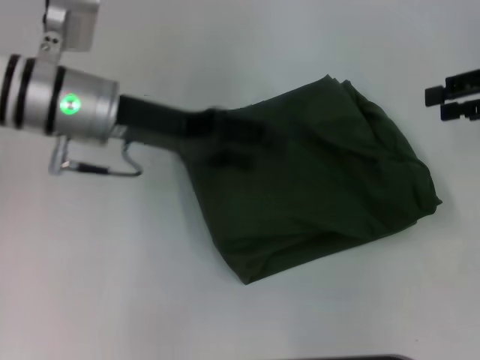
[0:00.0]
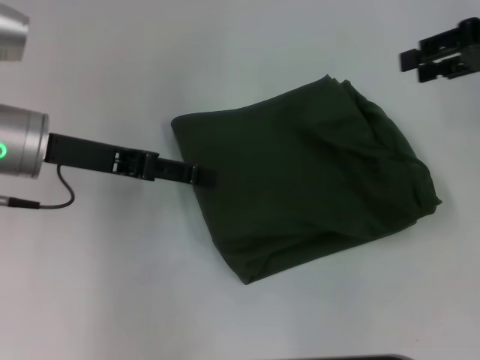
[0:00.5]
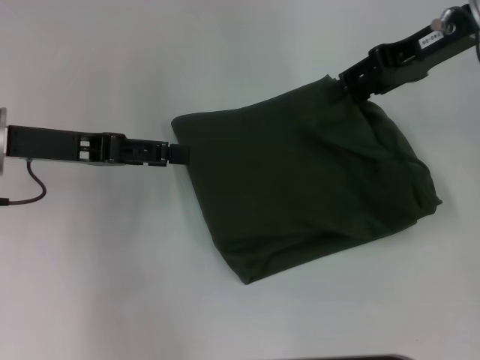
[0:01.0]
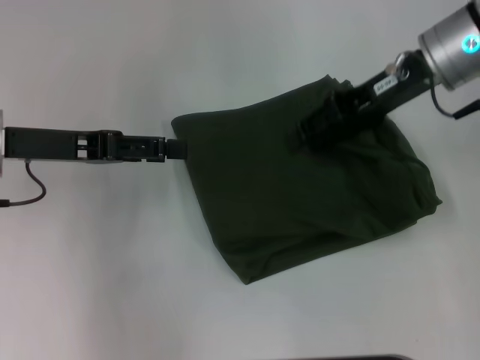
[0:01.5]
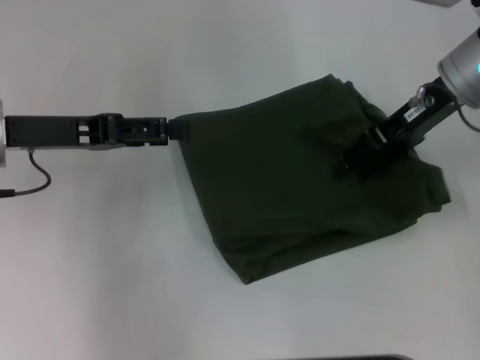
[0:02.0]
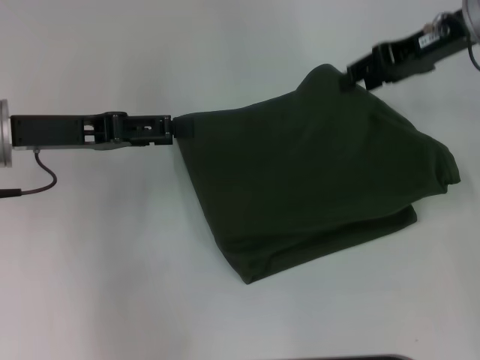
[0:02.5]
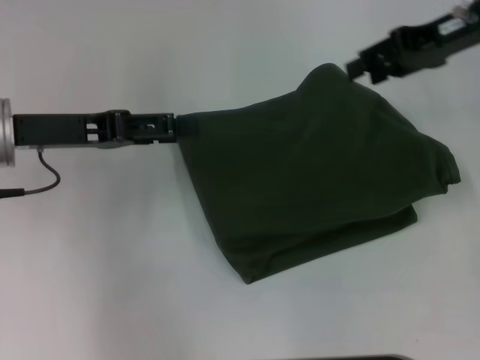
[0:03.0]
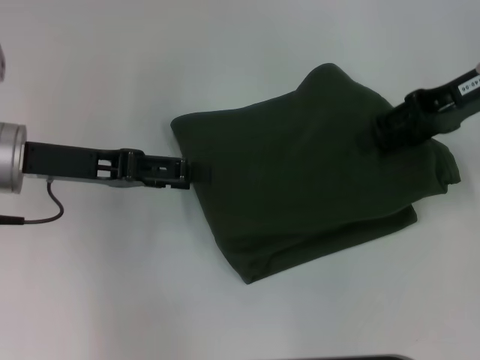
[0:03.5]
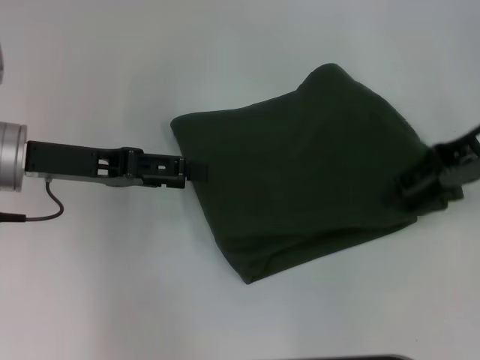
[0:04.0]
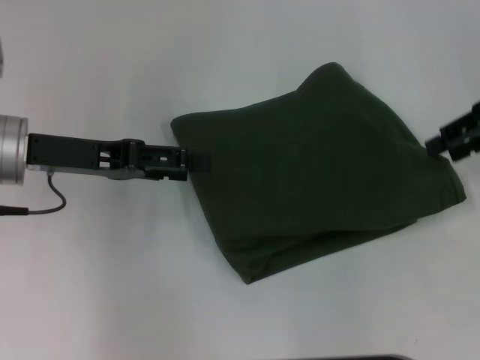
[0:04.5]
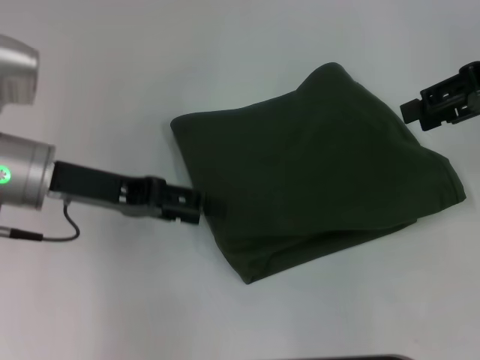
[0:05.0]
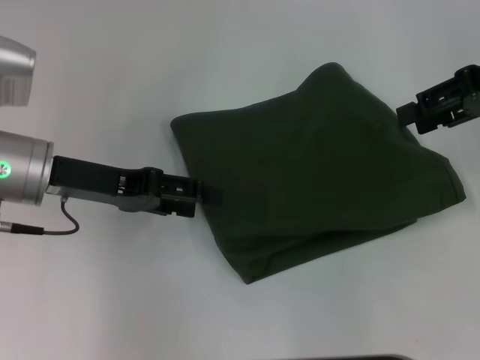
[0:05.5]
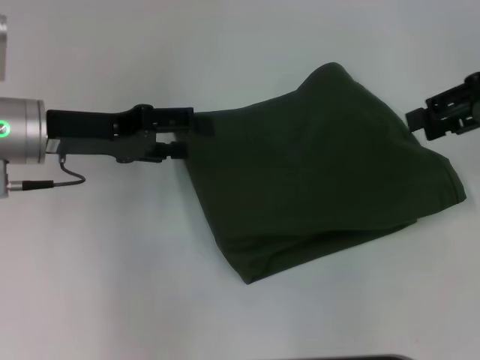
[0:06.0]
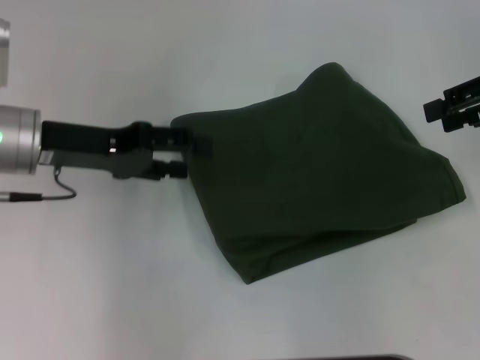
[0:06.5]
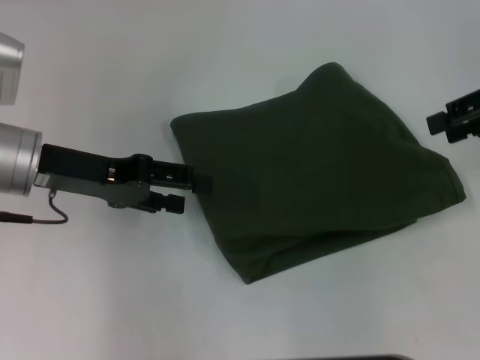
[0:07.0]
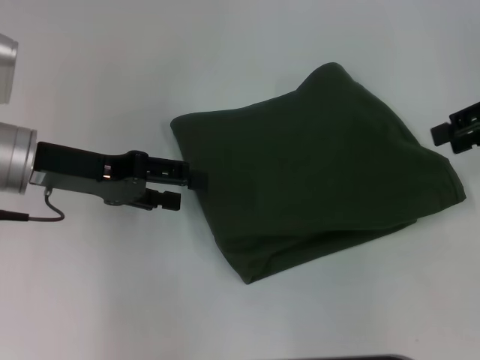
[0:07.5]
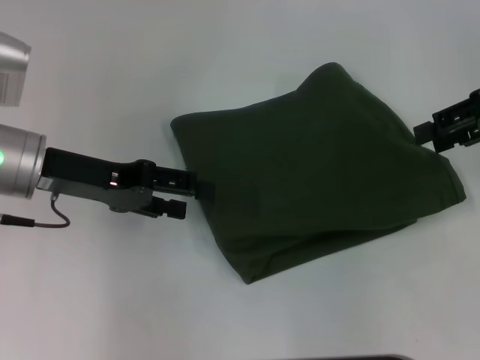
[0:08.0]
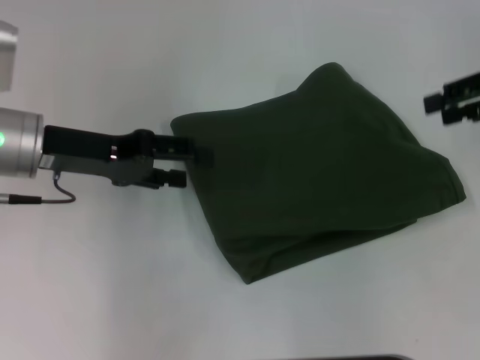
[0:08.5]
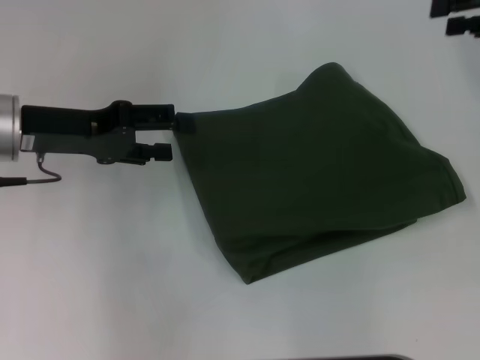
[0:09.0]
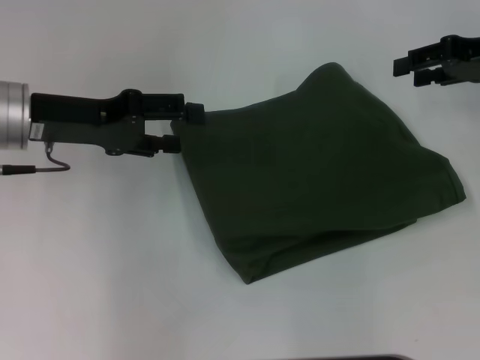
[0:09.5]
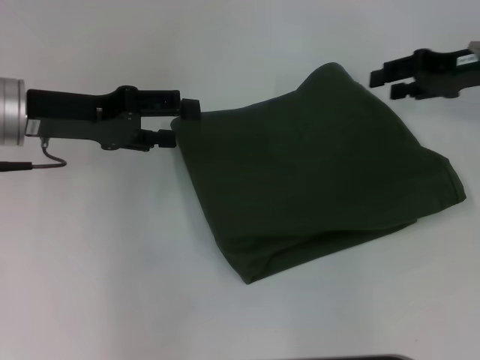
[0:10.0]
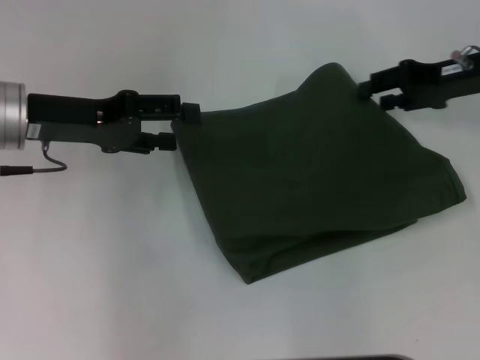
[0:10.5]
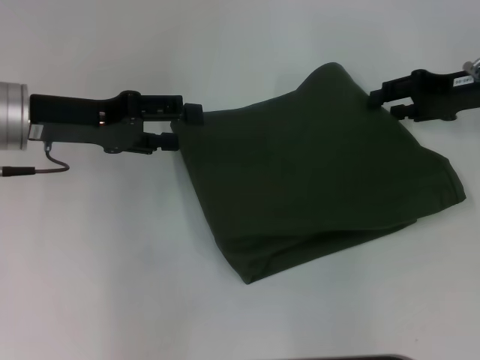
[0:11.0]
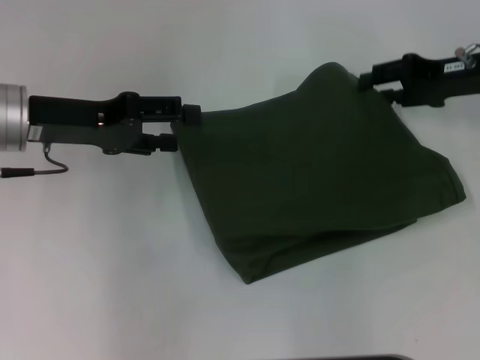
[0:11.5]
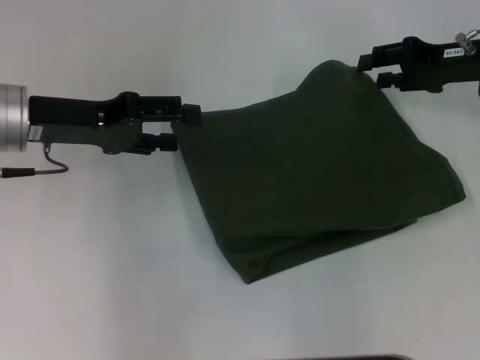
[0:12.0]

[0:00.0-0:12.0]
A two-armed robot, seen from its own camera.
0:00.0 to 0:02.0: The left gripper is displaced to the left by about 10 cm. The right gripper goes some 15 cm to the left.
0:02.0 to 0:04.0: The right gripper shifts some 5 cm to the right.
0:04.0 to 0:06.0: The right gripper ends up some 5 cm from where it was.
0:06.0 to 0:08.0: The grippers make only small movements.
0:08.0 to 0:10.0: The right gripper ends up approximately 5 cm from where it was.
0:10.0 to 0:12.0: The grippers stay close to where they were, moving slightly.

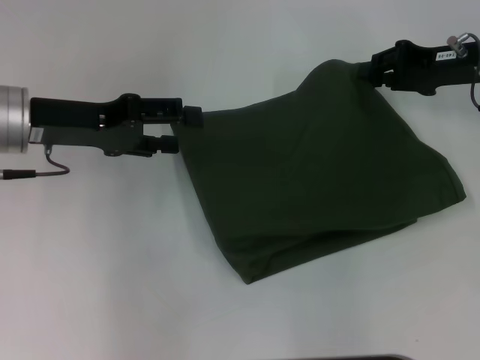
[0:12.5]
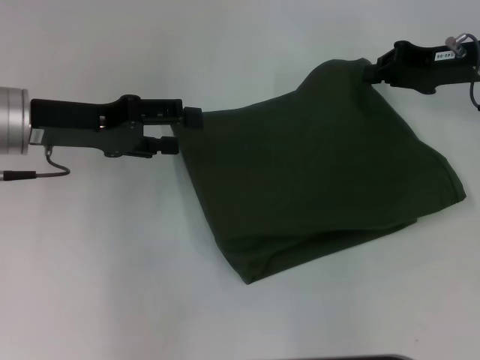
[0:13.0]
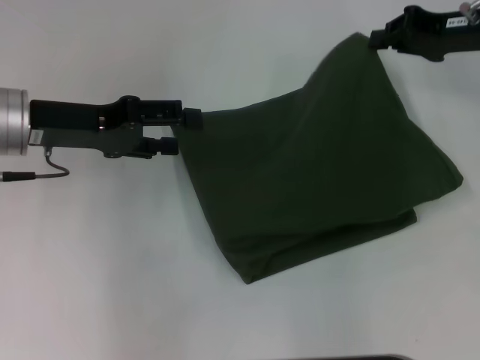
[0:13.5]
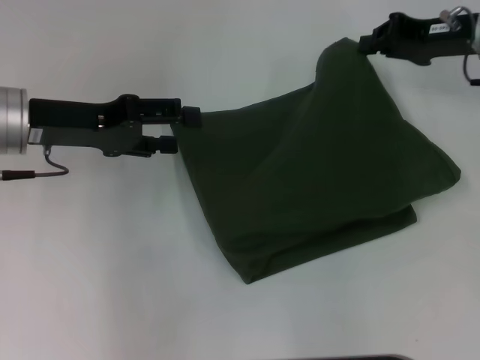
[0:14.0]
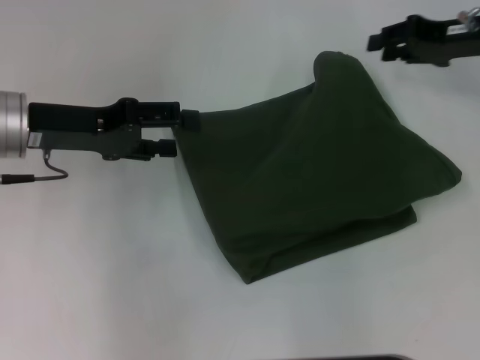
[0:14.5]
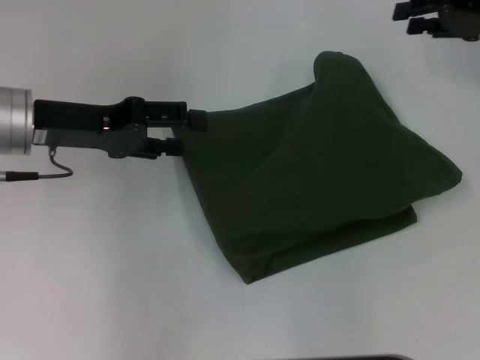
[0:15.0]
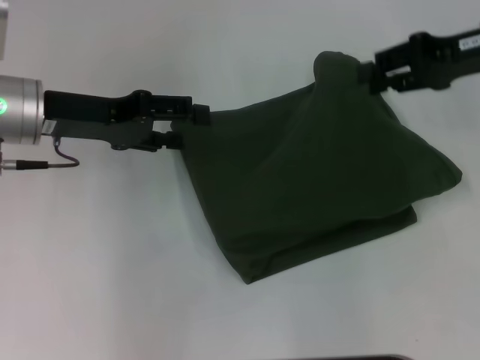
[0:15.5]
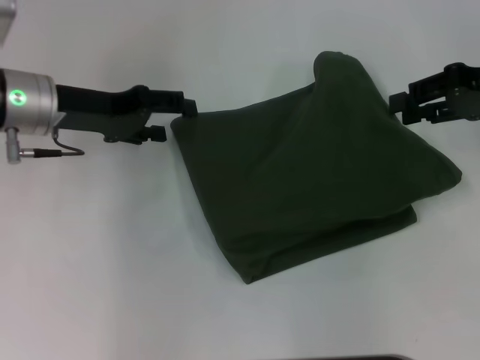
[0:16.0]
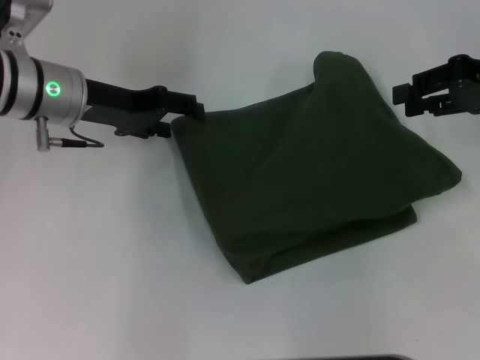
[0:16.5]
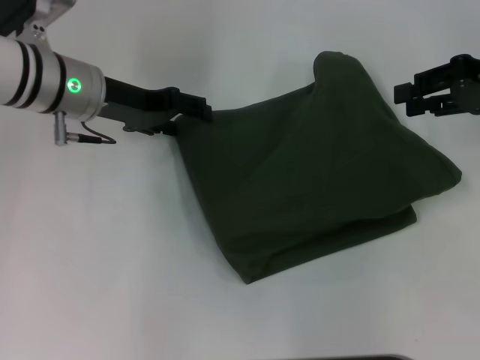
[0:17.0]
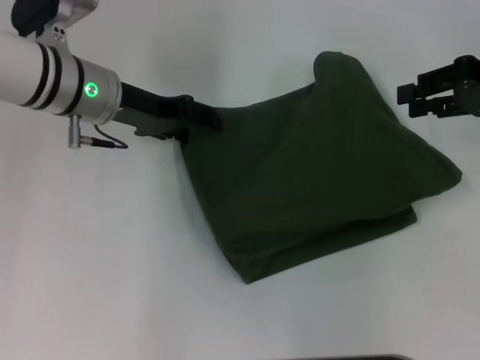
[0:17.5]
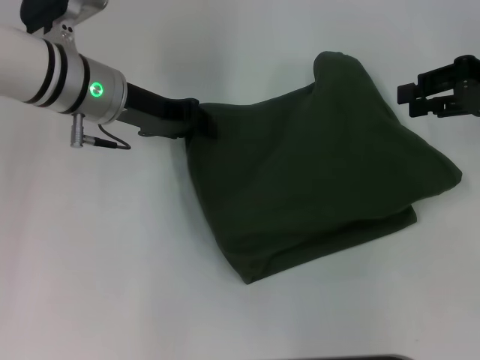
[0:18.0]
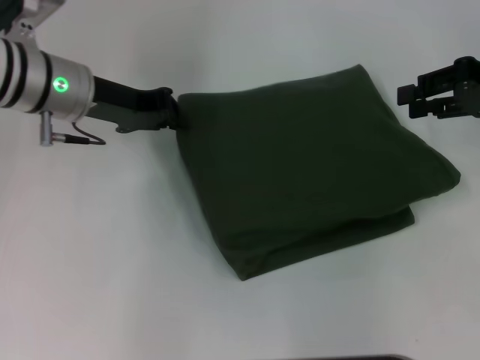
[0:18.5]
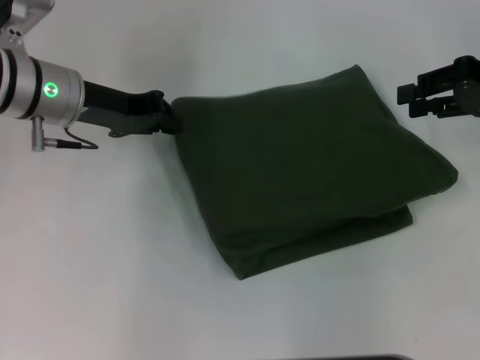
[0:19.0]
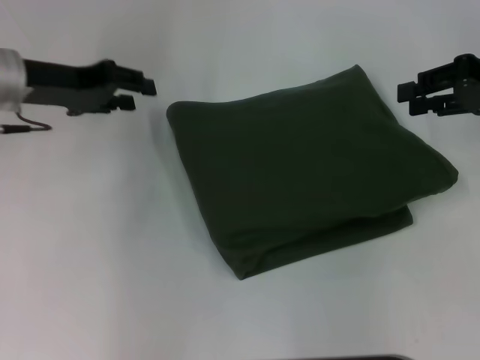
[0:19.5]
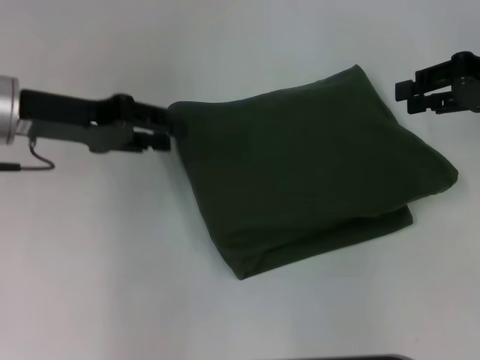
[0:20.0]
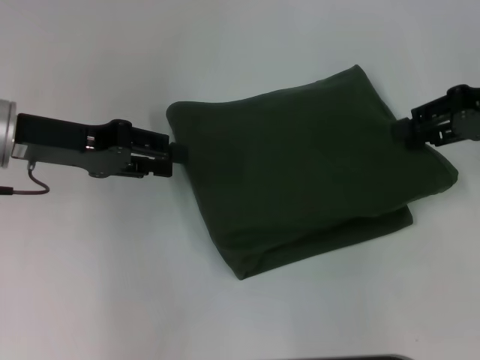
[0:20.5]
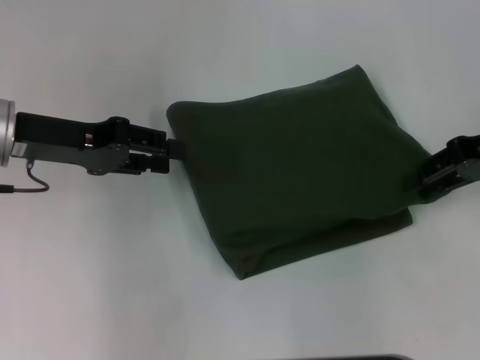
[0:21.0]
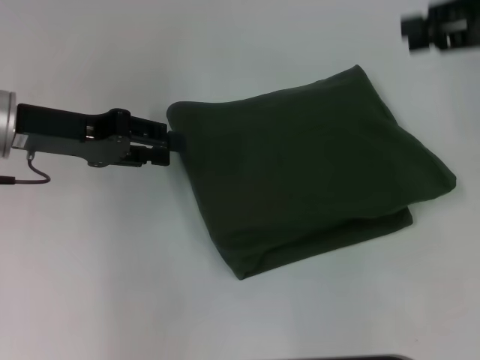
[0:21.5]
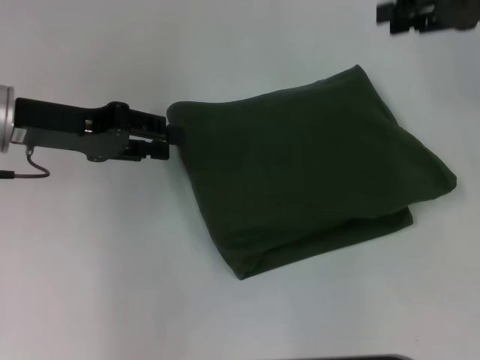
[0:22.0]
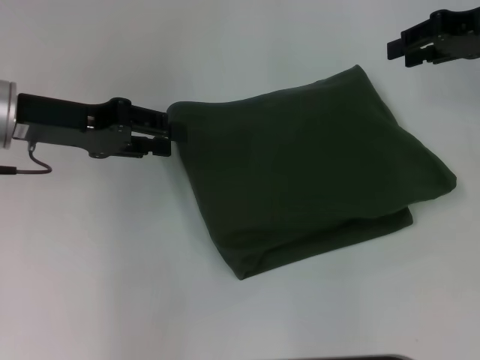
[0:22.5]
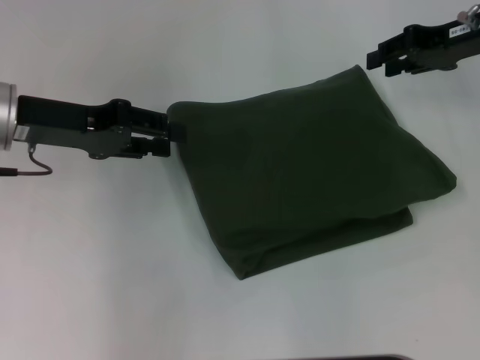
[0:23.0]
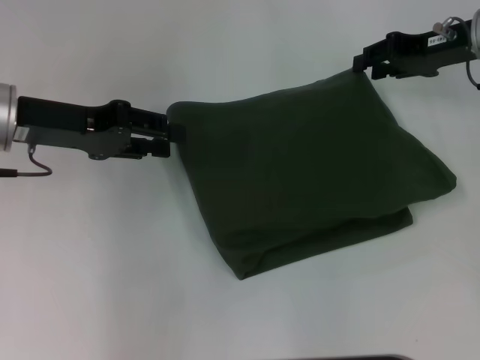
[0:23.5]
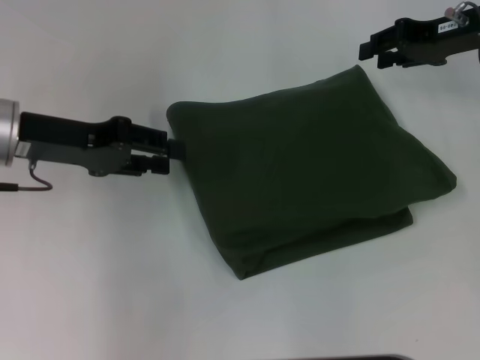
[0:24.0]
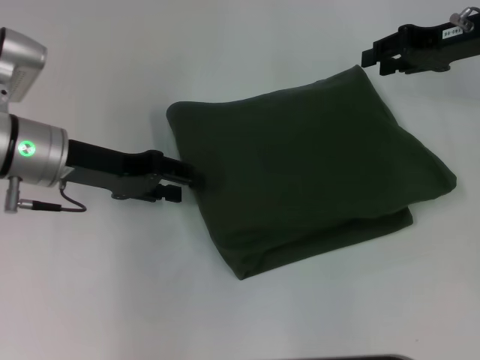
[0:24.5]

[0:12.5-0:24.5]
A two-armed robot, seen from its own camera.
0:12.5 to 0:14.5: There are only small adjustments of the grippers.
0:14.5 to 0:16.5: The left gripper shifts by some 5 cm, while the right gripper ends up about 5 cm from where it was.
0:16.5 to 0:18.5: The left gripper closes.
0:18.5 to 0:20.5: The left gripper travels backward and to the left by roughly 10 cm, and opens.
0:20.5 to 0:22.5: The right gripper moves forward, approximately 5 cm.
0:22.5 to 0:24.5: The left gripper shifts by about 5 cm.

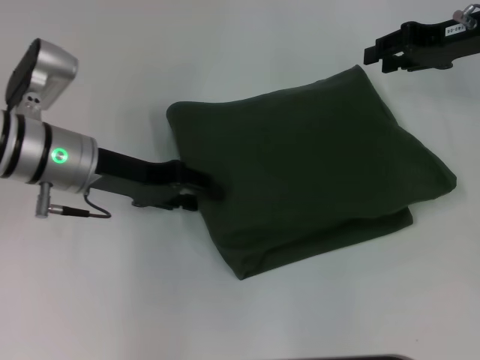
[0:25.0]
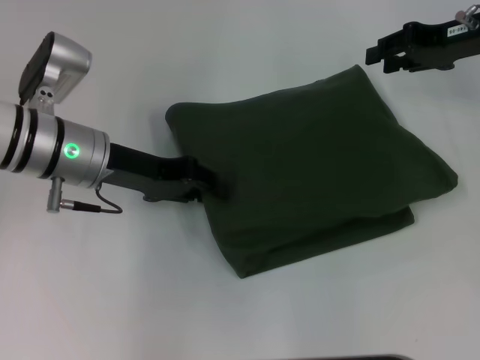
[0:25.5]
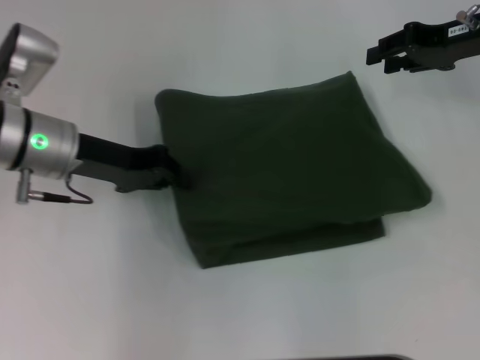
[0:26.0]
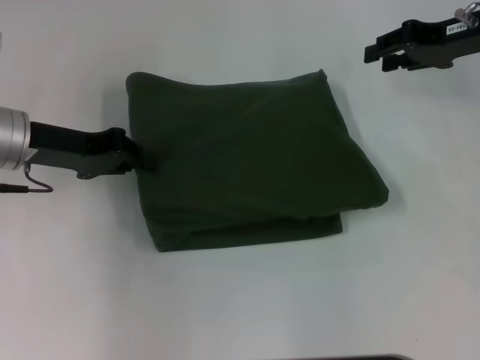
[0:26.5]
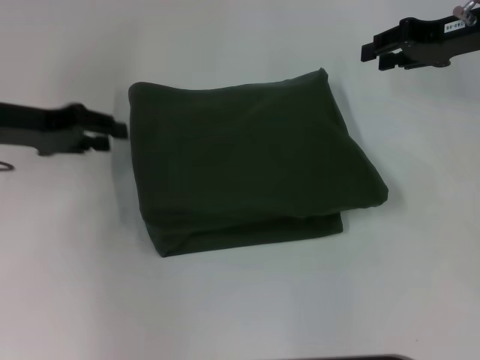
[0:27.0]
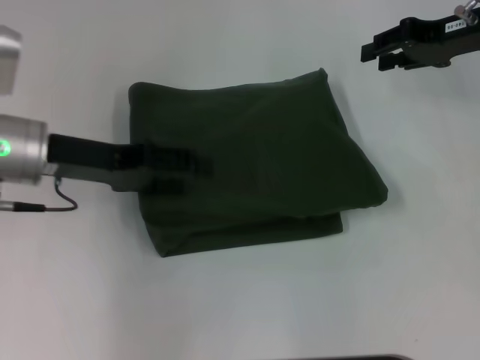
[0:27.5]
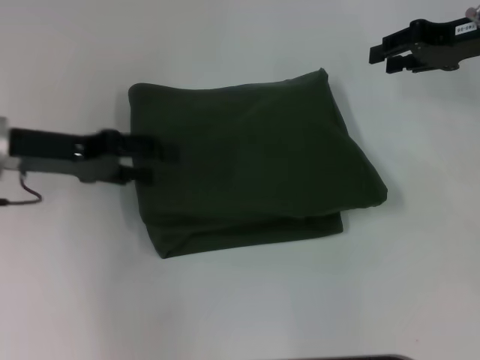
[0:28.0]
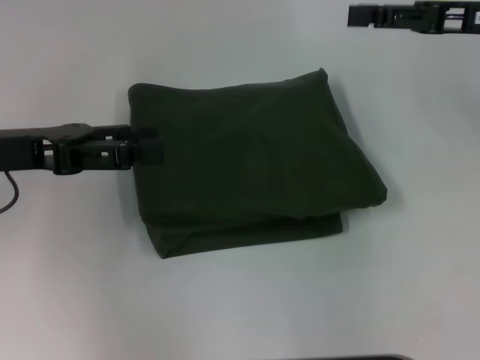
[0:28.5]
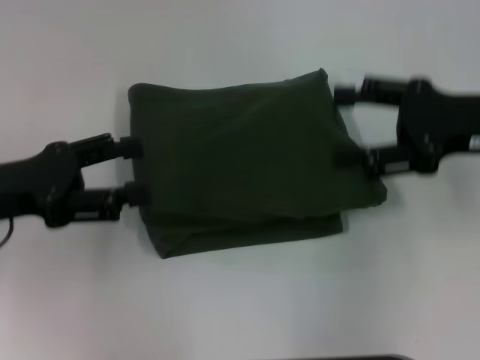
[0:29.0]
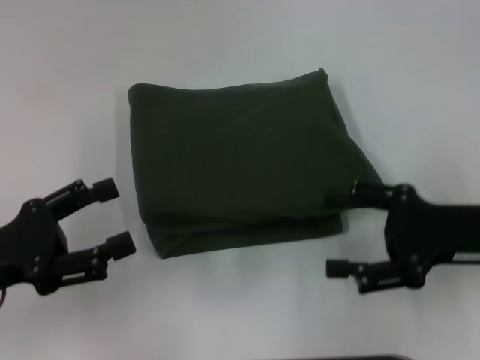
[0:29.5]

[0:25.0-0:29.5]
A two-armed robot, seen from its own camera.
0:25.0 to 0:27.0: The left gripper travels to the left by approximately 10 cm, and closes its fingers.
0:27.0 to 0:29.5: The left gripper moves backward, some 15 cm, and opens up. The right gripper is displaced backward and downward by about 20 cm, and opens its fingers.
